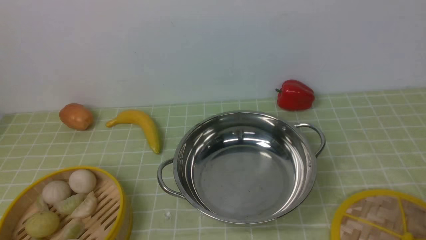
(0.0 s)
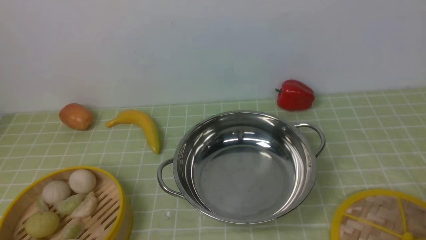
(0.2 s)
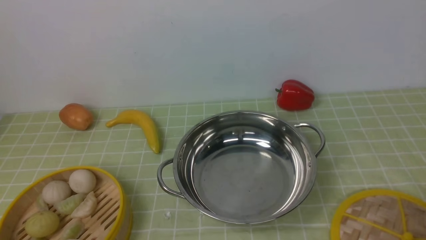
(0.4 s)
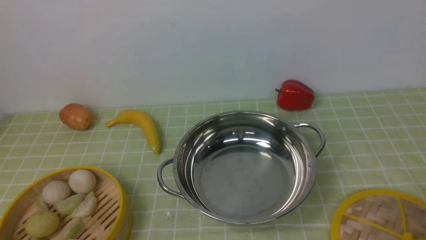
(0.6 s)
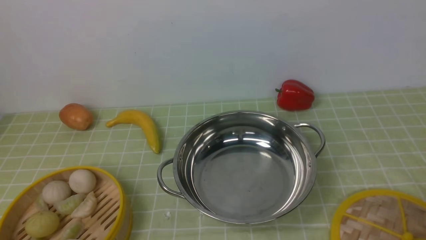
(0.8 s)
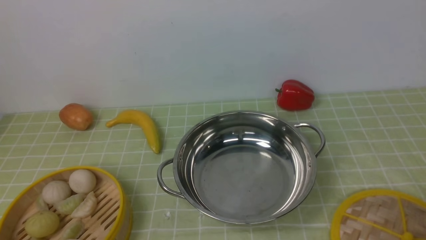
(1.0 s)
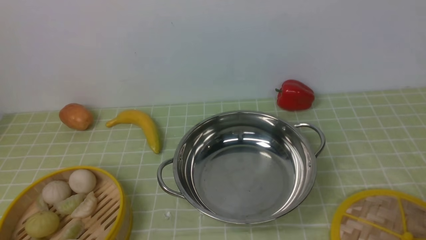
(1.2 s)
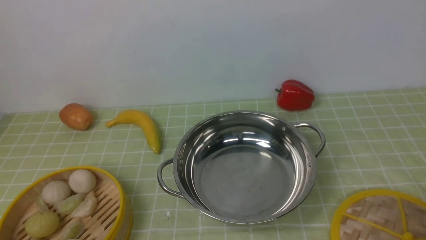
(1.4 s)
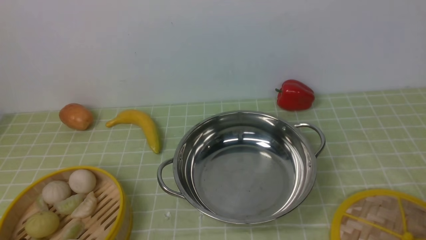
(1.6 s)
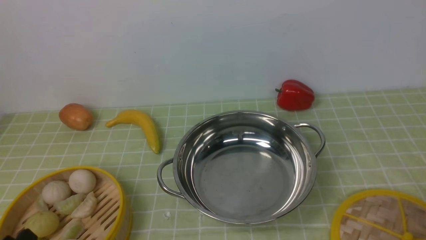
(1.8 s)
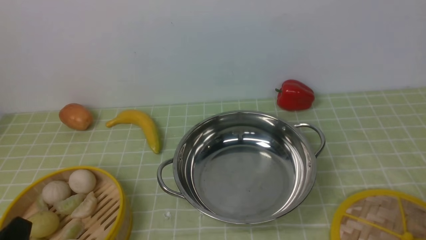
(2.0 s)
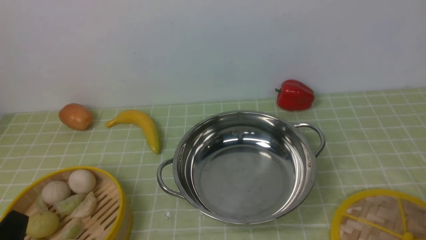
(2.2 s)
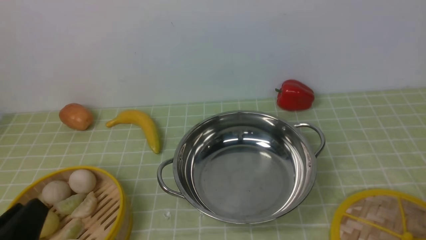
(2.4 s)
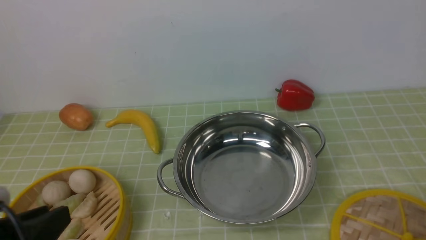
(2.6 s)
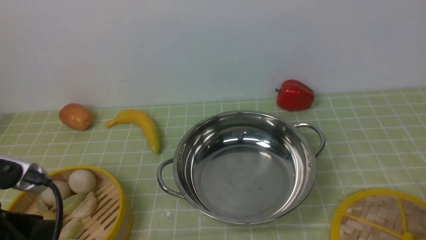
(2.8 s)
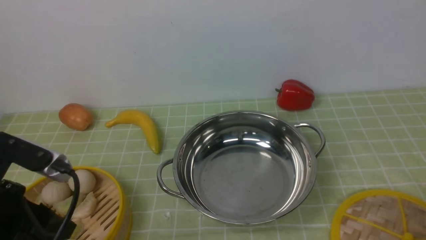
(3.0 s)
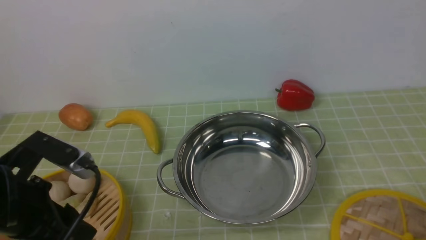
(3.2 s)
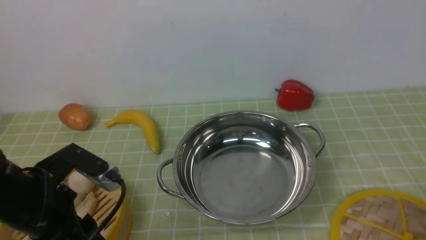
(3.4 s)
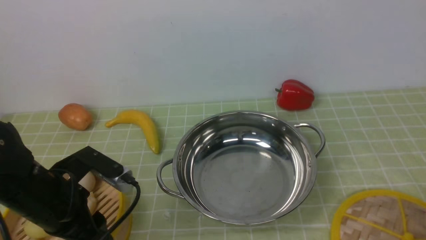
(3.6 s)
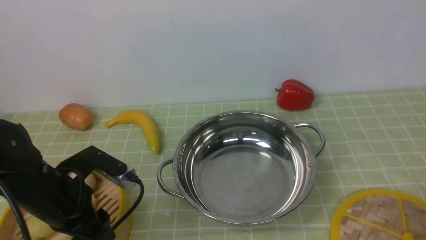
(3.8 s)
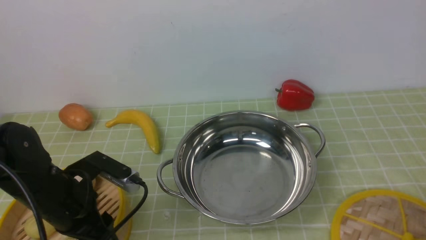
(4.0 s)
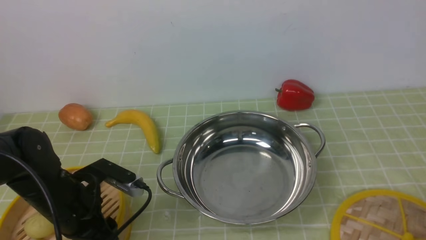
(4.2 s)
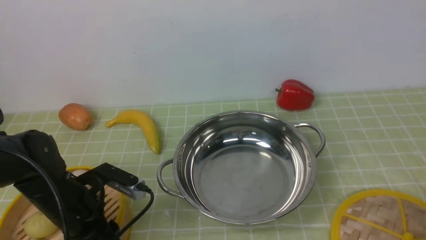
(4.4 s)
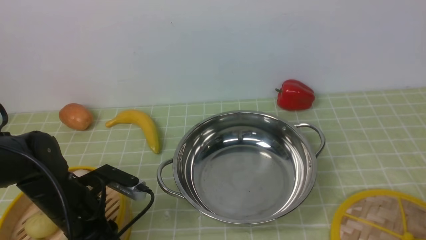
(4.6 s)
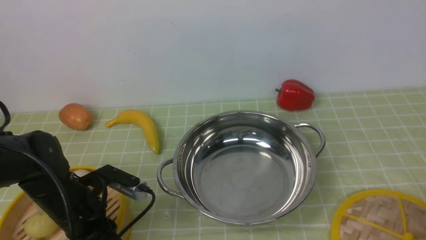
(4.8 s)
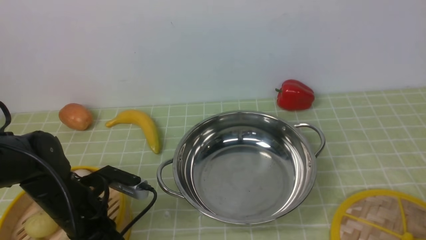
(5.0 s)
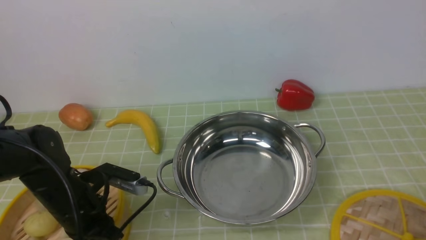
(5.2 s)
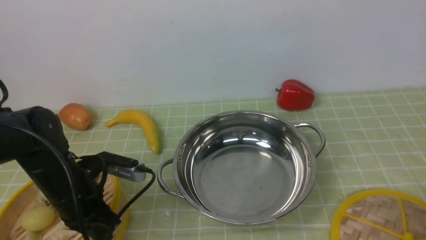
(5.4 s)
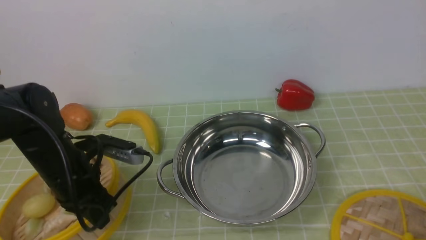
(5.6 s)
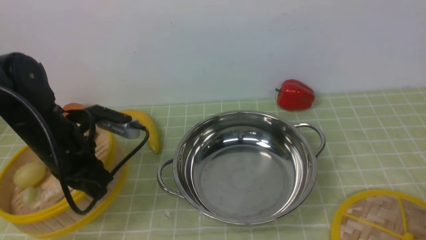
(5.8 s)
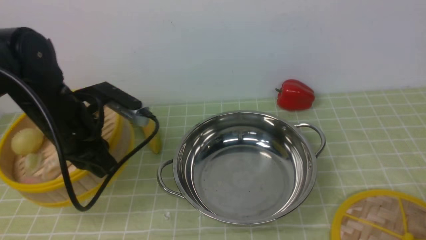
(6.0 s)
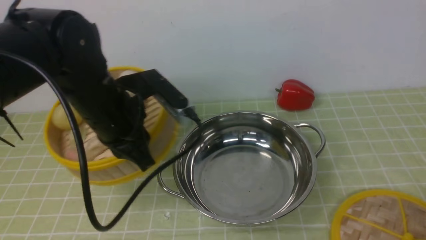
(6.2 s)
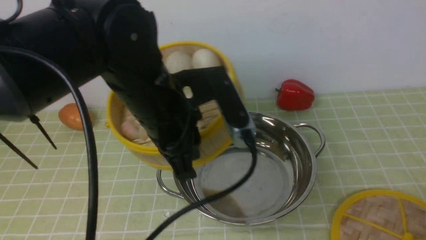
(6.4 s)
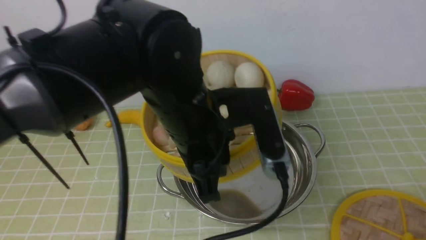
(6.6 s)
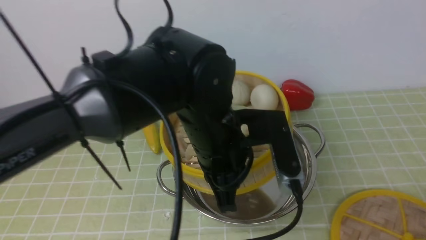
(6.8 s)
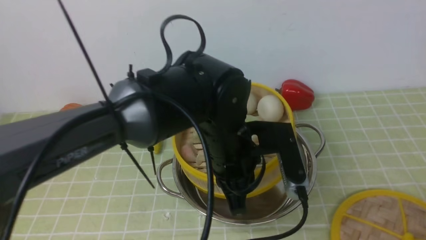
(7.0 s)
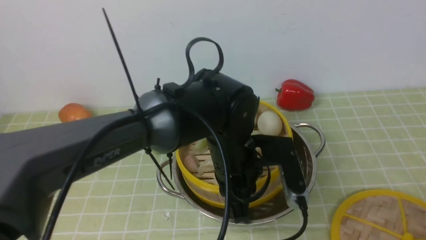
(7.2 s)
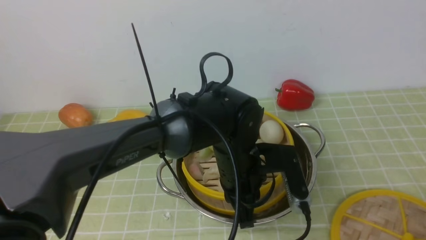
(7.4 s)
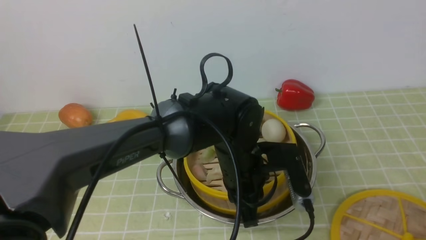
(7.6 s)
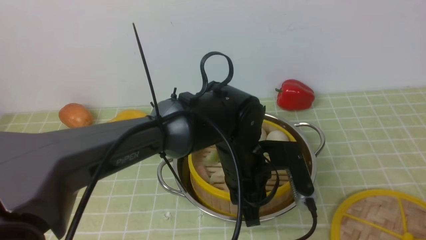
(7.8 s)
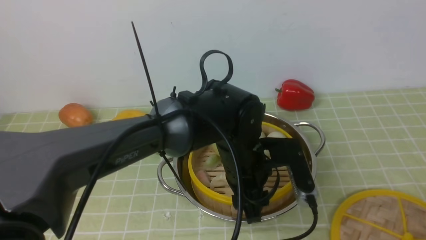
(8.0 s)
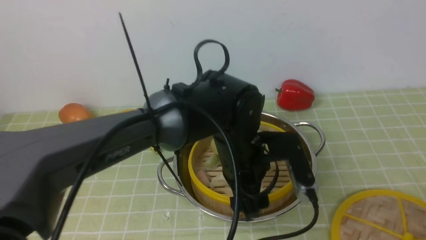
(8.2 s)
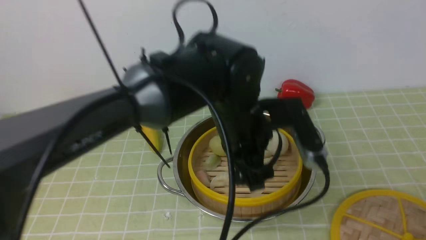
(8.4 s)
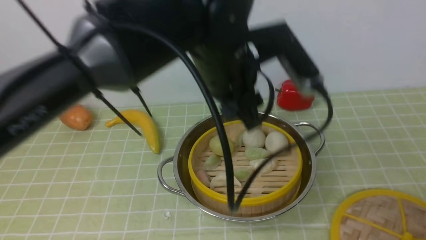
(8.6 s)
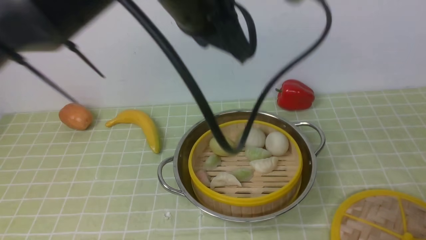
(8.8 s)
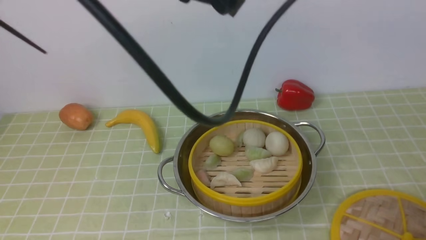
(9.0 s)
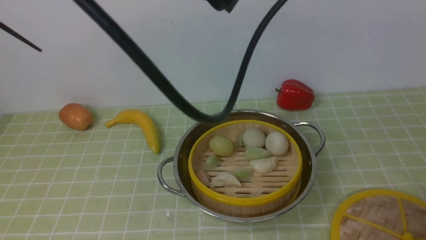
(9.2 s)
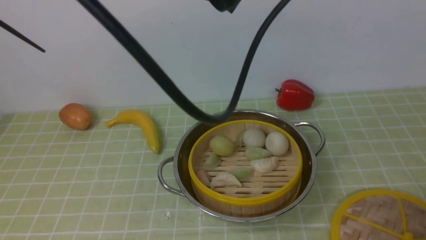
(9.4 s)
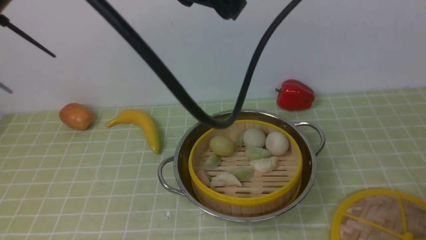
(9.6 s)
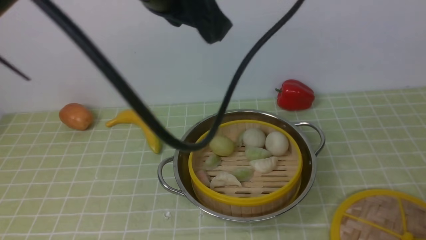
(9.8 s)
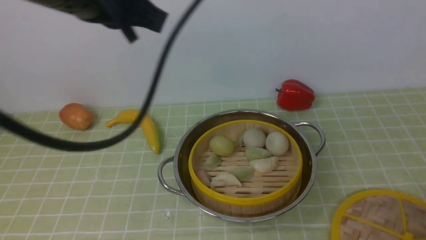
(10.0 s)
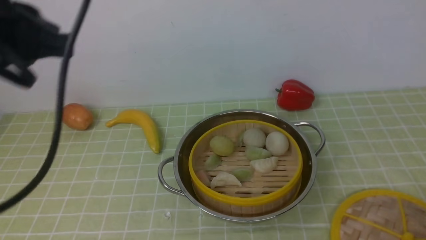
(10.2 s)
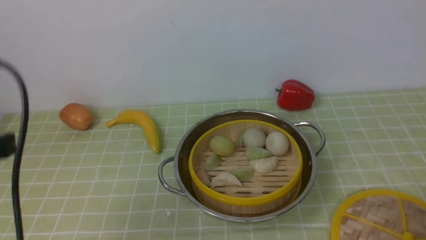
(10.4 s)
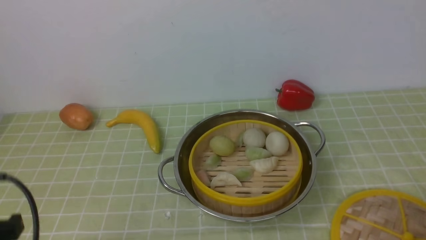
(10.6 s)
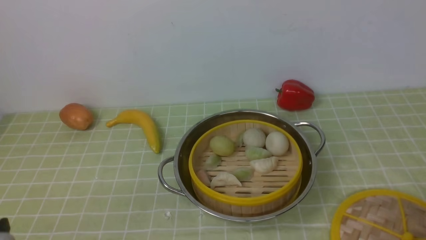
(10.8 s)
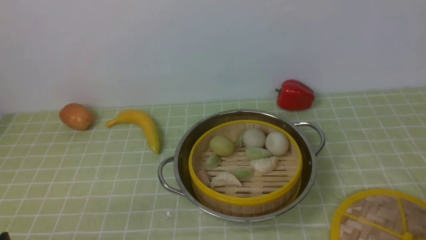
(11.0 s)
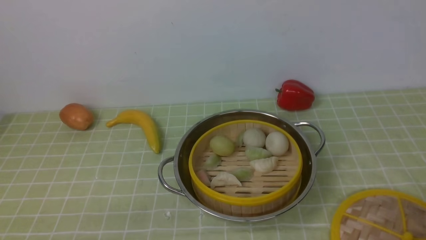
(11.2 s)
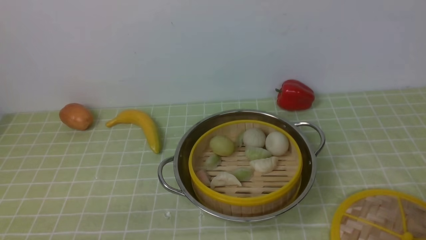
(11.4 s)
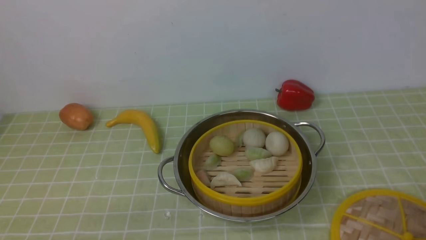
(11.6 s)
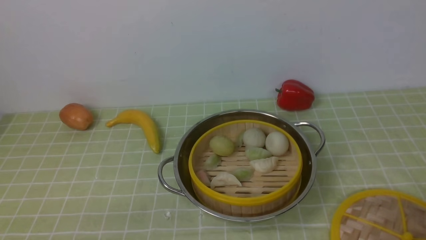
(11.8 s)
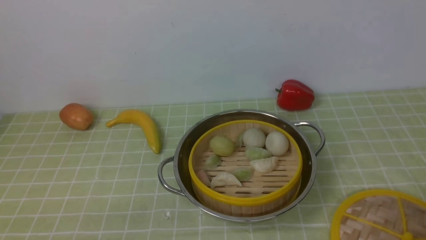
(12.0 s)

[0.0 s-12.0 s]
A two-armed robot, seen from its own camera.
Task of the whole recording: place the steamer in the pot on the green tablecloth, and put the lid on the steamer.
Step, 0.0 to 5.8 s: use the left arm to lift the steamer closest to it.
Step, 6.2 to 8.6 s: use the left arm to put the steamer into the iron steamer pot in the middle.
1.6 to 3.0 s: The left gripper shifts about 15 cm forward and upward.
3.0 to 4.4 s: The left gripper goes roughly 15 cm downward and forward.
4.4 to 6.0 s: The left gripper travels upward and forward by approximately 15 cm, and closes its fingers.
6.0 to 7.6 s: The left gripper is displaced to the right by approximately 20 cm.
7.6 to 9.0 s: The left gripper moves upward, approximately 25 cm, and opens, then closes again.
9.0 to 10.4 s: The left gripper shifts about 30 cm to the left, backward and downward.
10.4 to 12.0 s: The left gripper moves downward and backward, approximately 20 cm.

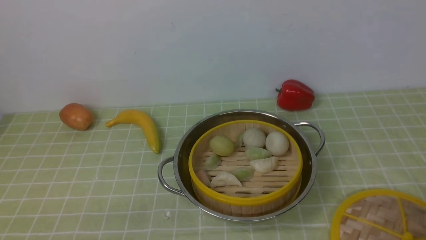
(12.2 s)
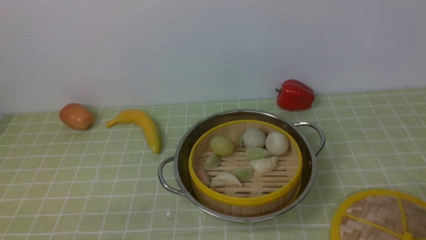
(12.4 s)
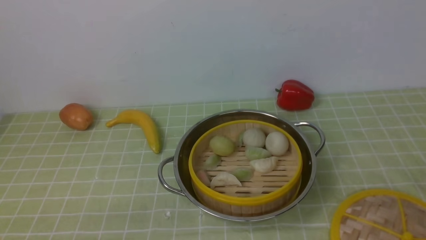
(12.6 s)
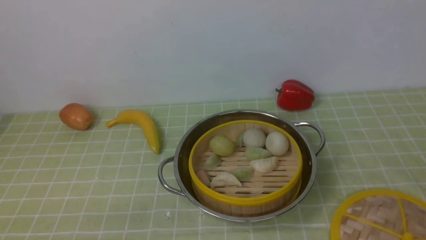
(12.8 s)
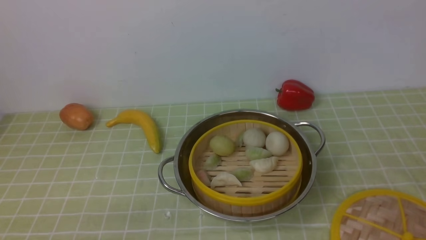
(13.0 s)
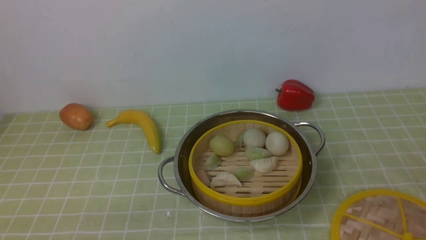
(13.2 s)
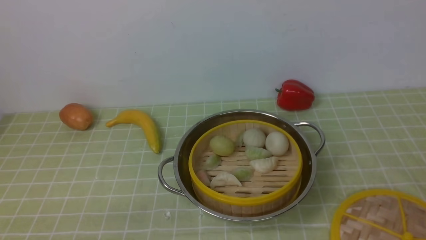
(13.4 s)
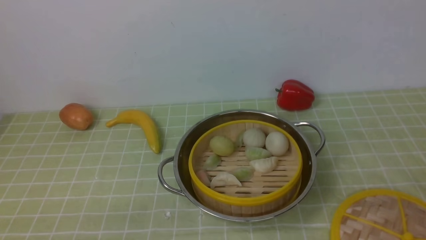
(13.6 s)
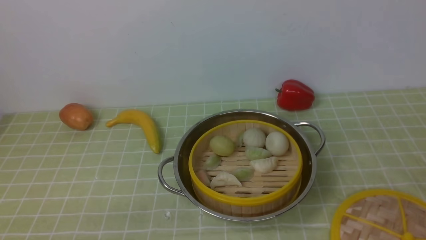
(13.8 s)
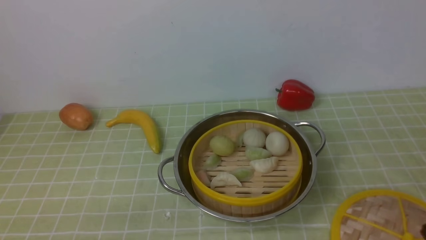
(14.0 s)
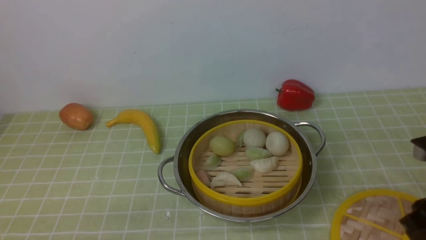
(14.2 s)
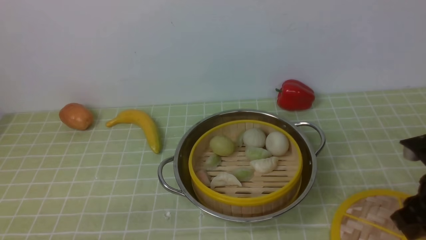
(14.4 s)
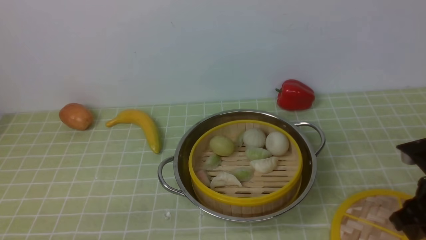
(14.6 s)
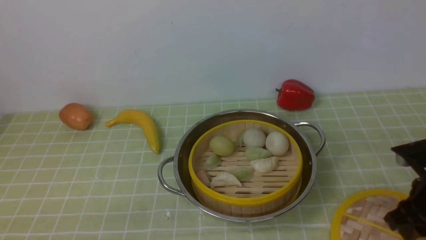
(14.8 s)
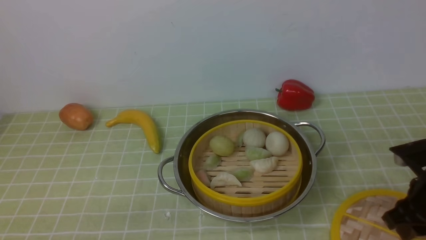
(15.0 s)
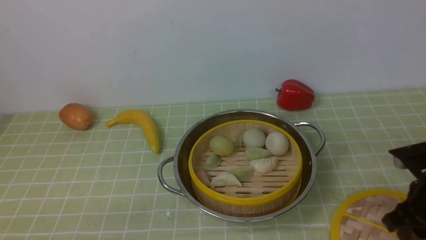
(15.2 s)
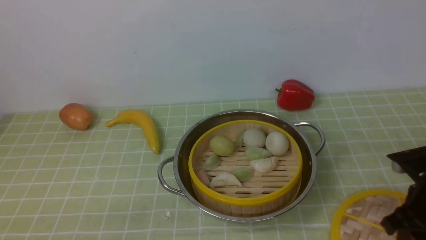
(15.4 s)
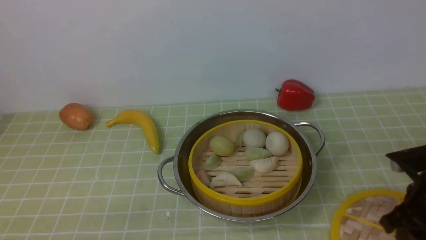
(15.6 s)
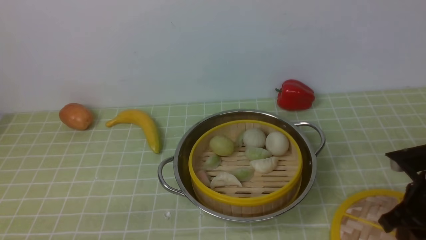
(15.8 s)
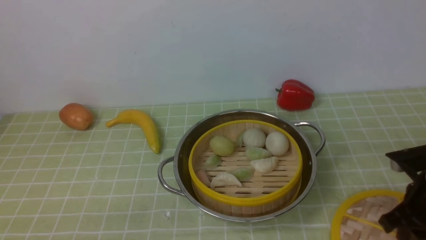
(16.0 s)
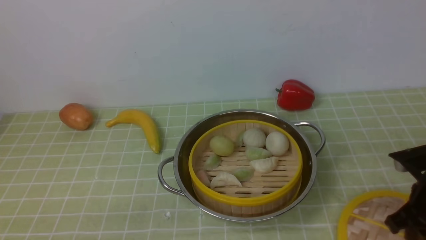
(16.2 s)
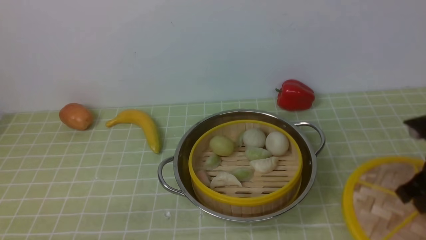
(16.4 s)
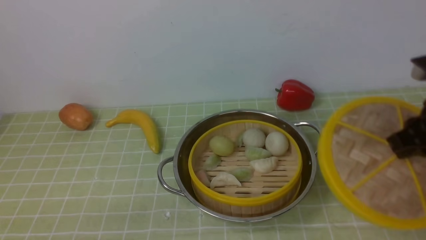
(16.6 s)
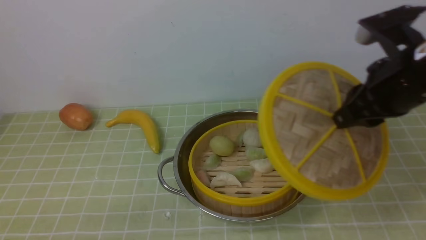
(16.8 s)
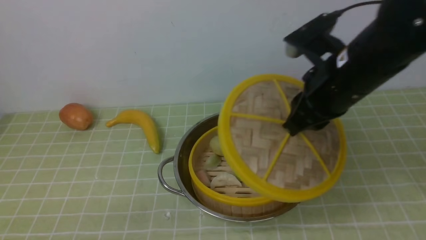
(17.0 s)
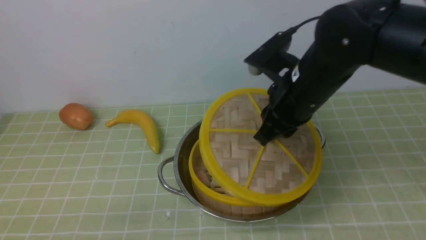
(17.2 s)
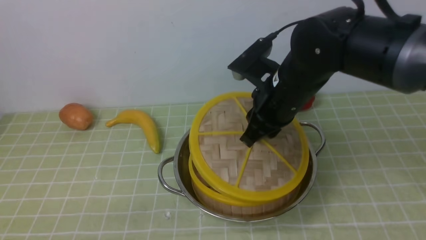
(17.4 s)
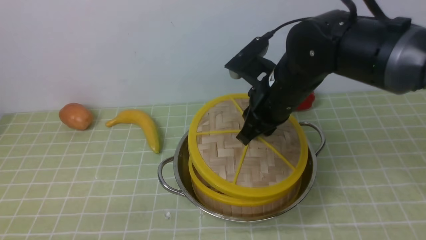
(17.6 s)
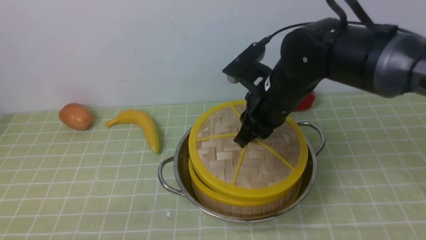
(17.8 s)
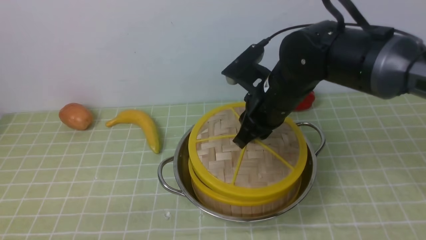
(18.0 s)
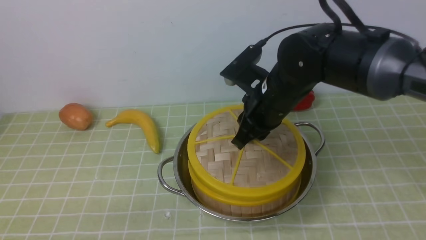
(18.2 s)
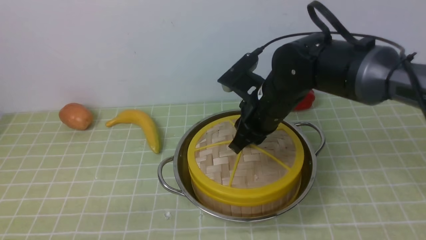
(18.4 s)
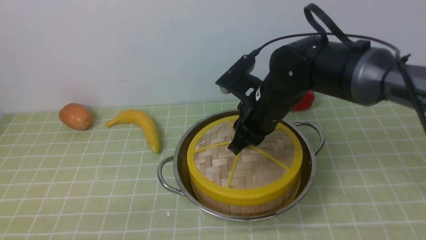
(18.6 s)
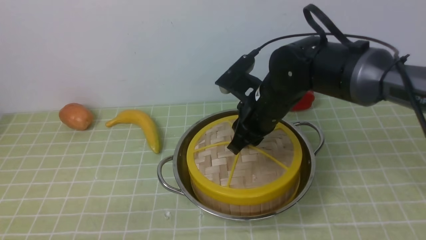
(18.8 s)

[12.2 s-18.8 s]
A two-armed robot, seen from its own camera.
Task of the whole recording: place the steamer in the pot on the green tablecloth, and put the lid on the steamer.
Step, 12.2 to 16.8 s: use the right arm to lift the lid of the steamer.
13.8 to 15.4 s: The right gripper is displaced downward and forward by about 15 cm.
15.4 to 17.2 s: The right gripper moves to the left, upward and forward, about 25 cm.
17.2 to 18.8 s: The right gripper heads downward, covering roughly 5 cm, and opens its fingers.
